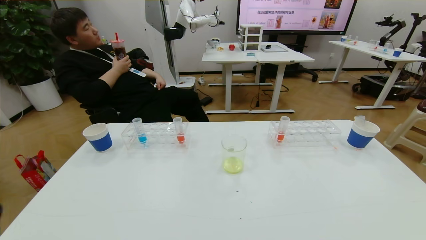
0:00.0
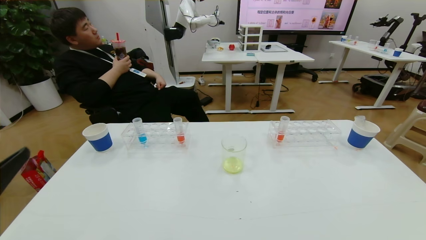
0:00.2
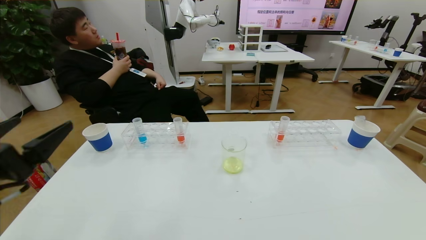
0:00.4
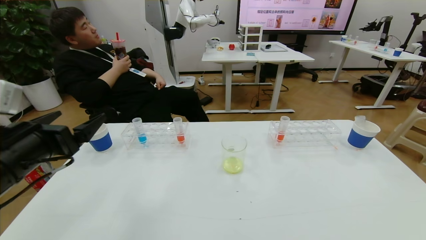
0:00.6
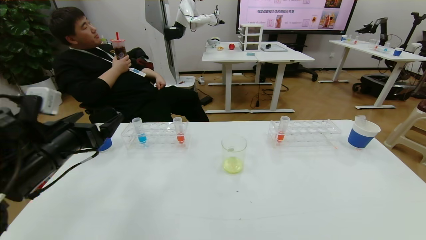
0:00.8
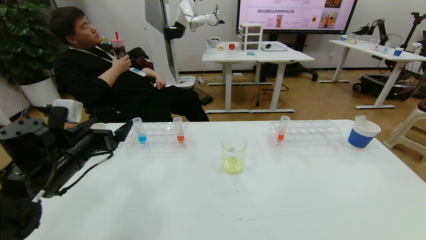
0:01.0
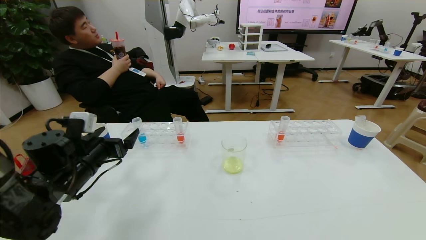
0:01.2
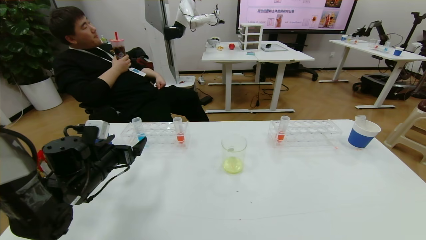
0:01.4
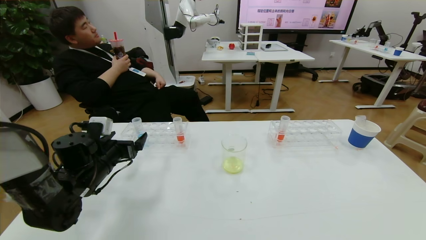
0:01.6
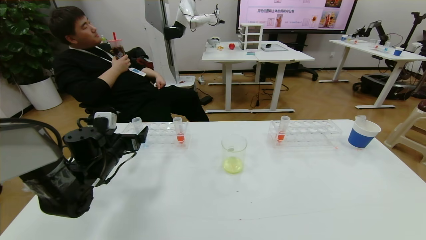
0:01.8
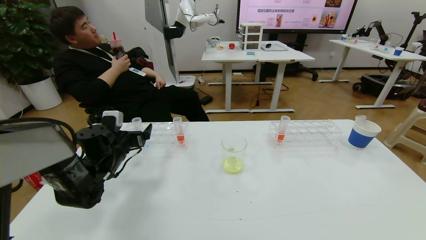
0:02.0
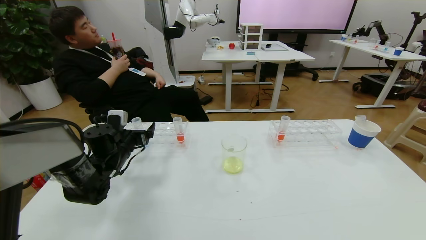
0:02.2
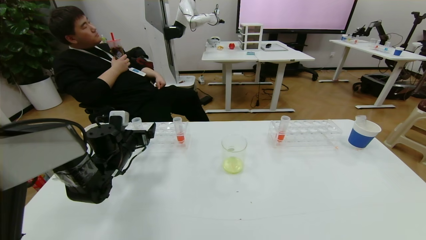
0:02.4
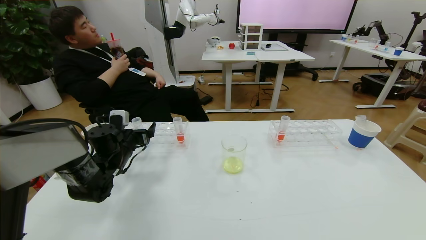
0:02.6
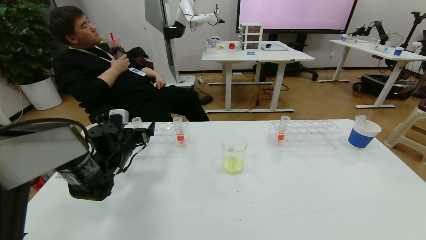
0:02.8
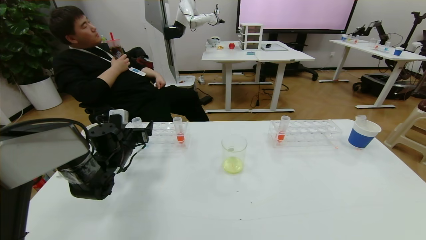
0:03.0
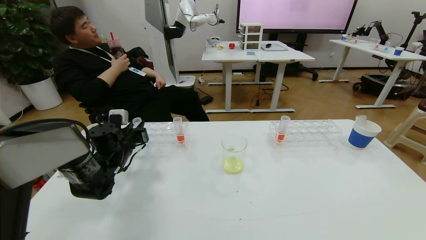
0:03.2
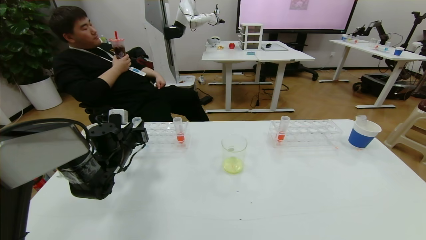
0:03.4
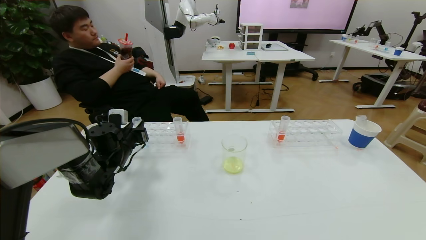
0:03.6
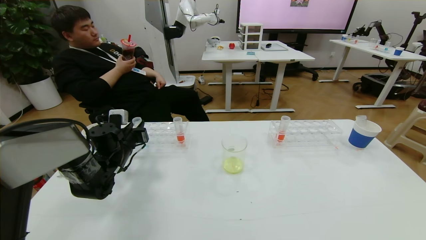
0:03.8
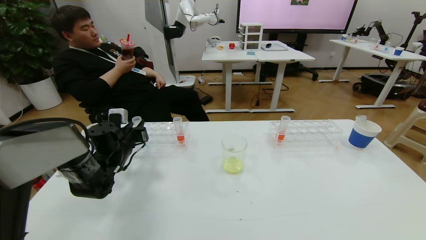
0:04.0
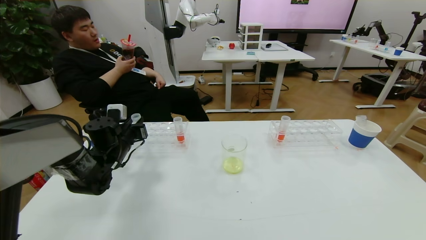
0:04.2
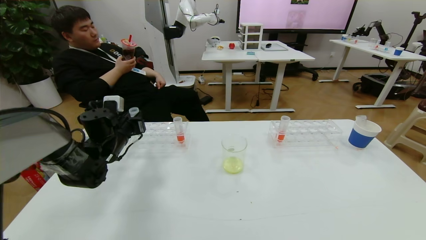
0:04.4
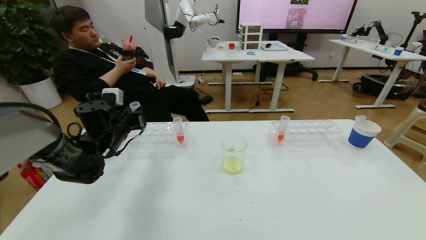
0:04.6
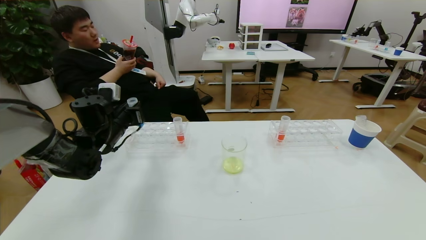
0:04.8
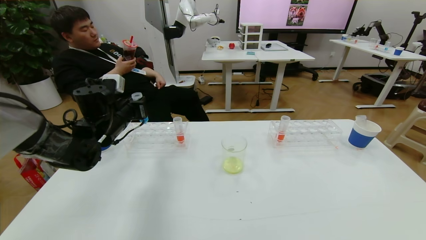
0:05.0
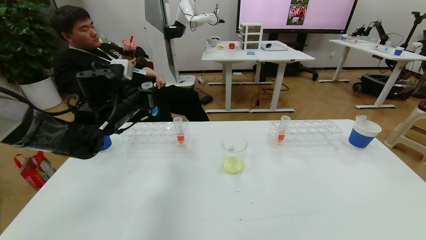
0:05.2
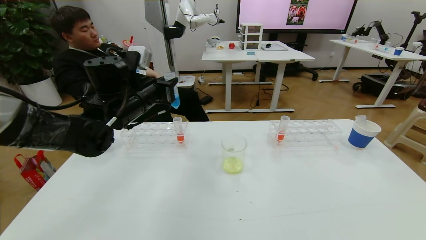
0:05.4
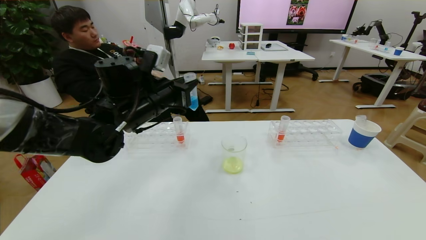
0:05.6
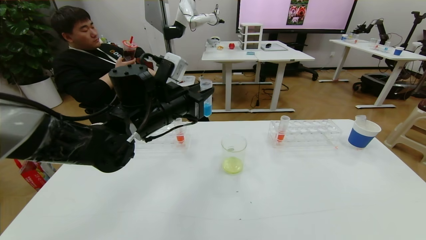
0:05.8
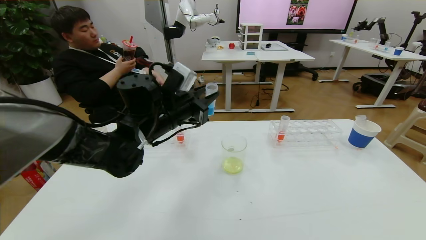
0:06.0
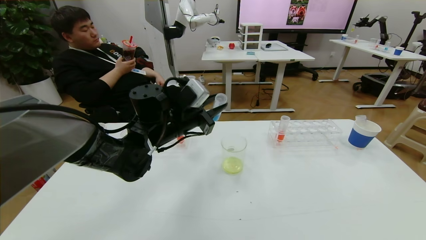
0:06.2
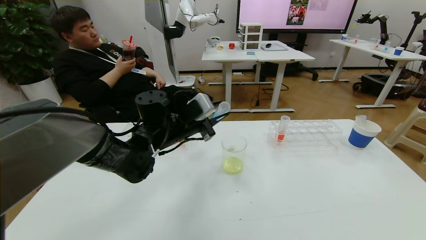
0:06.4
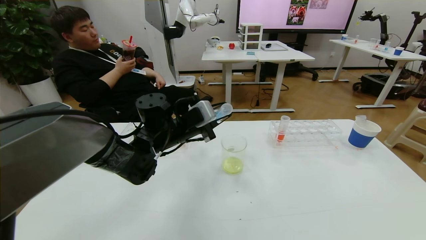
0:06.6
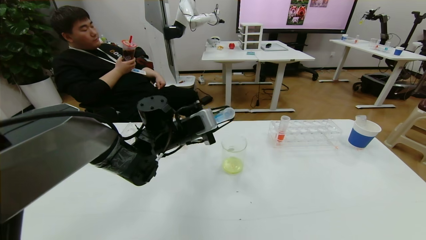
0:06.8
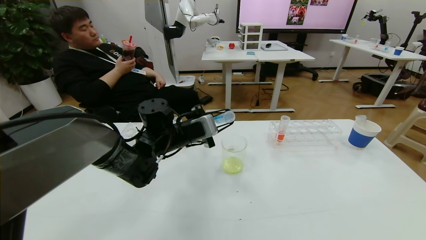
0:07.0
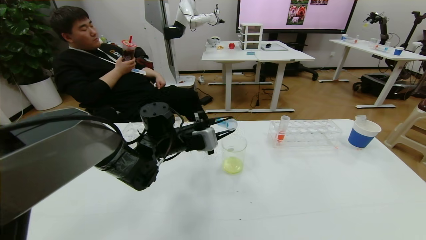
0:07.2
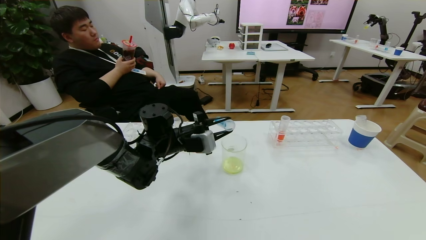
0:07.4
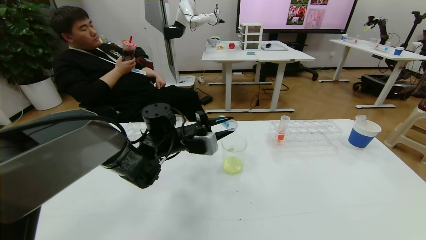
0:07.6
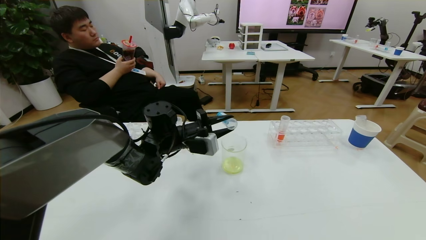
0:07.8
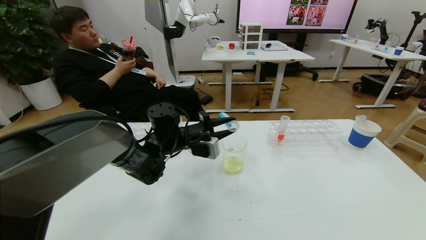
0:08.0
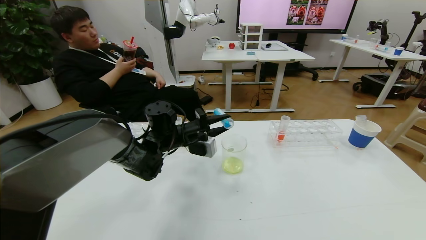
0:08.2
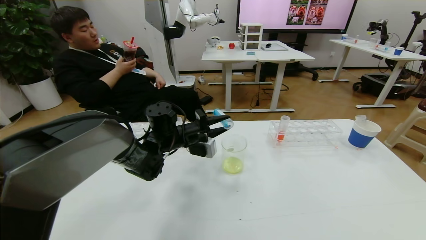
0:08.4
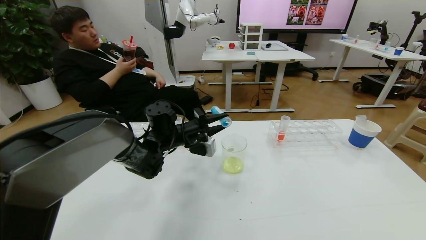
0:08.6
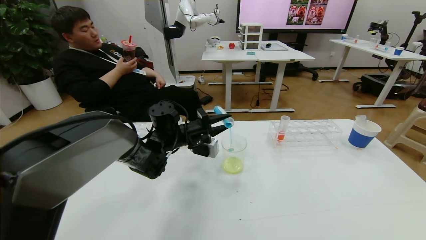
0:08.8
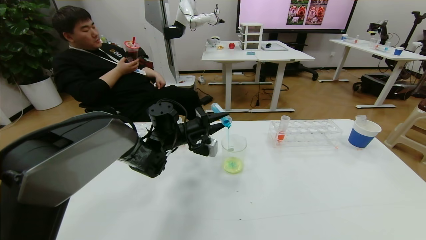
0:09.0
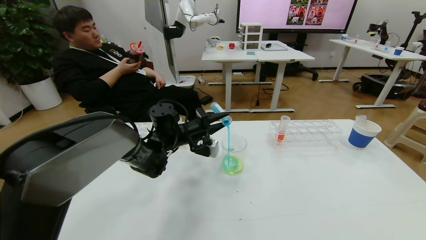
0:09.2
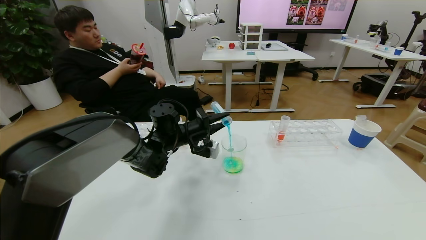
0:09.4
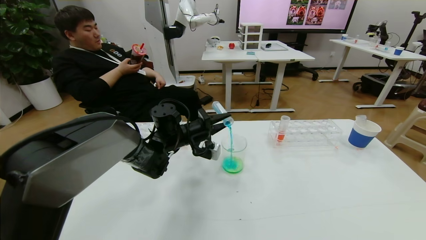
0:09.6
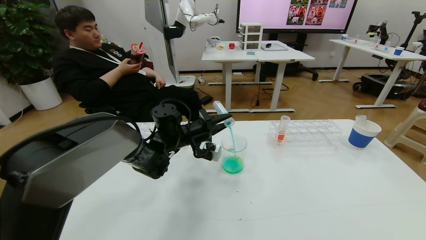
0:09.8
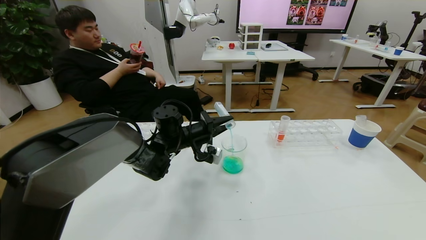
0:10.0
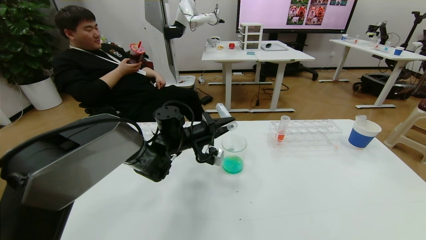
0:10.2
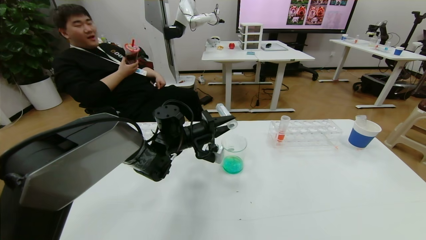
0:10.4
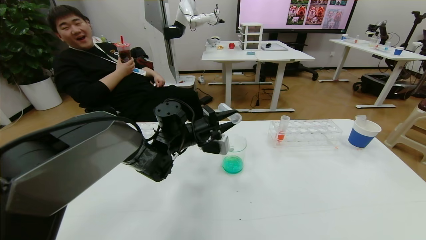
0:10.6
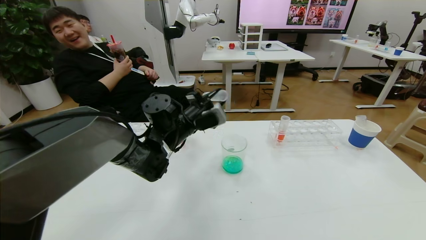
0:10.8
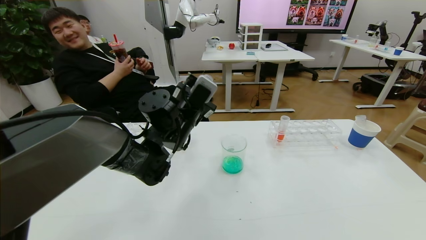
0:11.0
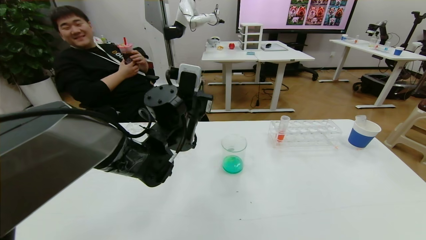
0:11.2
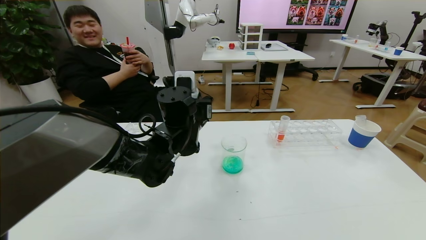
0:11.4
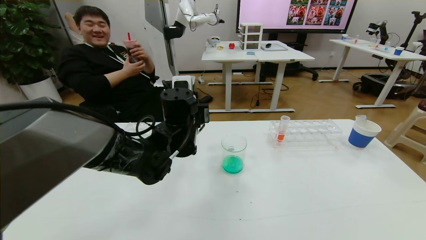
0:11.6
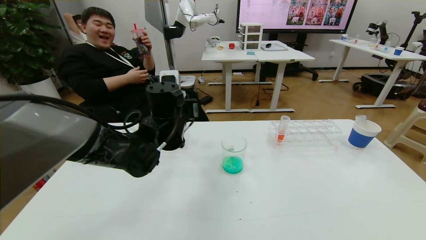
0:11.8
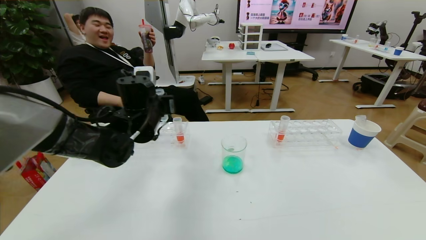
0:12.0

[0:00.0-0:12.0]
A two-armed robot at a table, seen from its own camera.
Task of the whole recording: pick up the test tube with yellow pigment and the test tube with blue pigment by grippers and pour them into the beaker.
0:00.0 to 0:01.6: The left gripper heads forward, covering roughly 30 cm.
0:01.6 to 0:03.0: The left gripper goes approximately 10 cm forward.
0:03.0 to 0:04.4: The left gripper closes its fingers.
0:04.4 to 0:06.0: The left gripper heads to the right and upward, covering roughly 20 cm.
0:06.0 to 0:07.6: The left gripper travels downward by about 5 cm.
0:09.0 to 0:10.4: The grippers stay close to where they were, moving slightly.
0:10.4 to 0:12.0: The left gripper heads to the left and upward, covering about 10 cm.

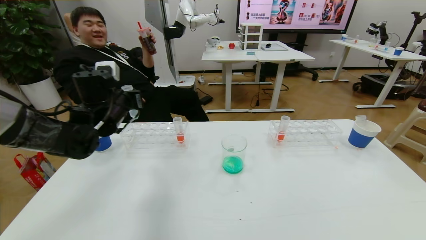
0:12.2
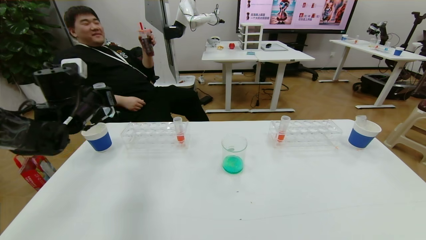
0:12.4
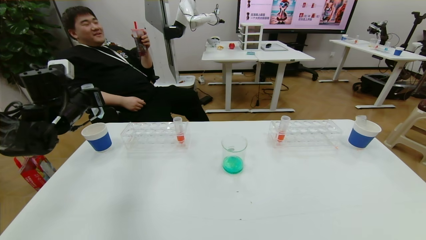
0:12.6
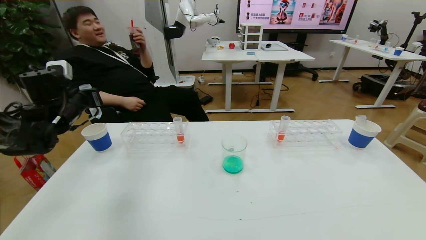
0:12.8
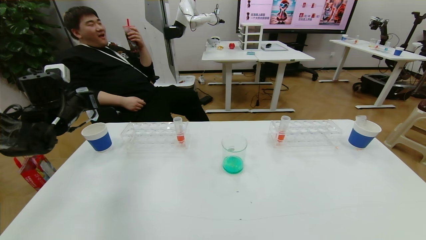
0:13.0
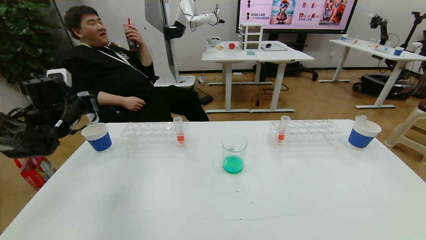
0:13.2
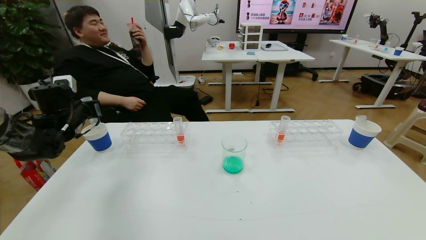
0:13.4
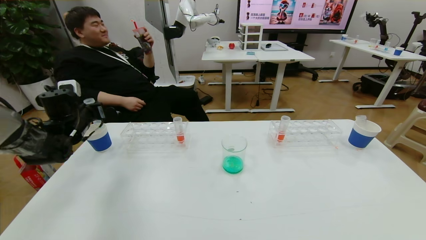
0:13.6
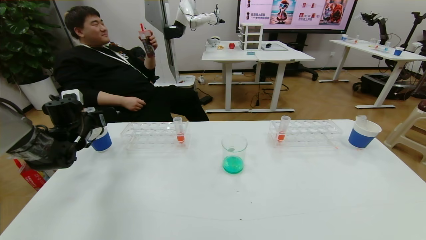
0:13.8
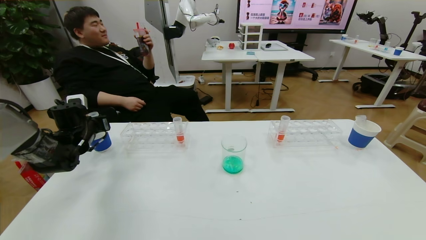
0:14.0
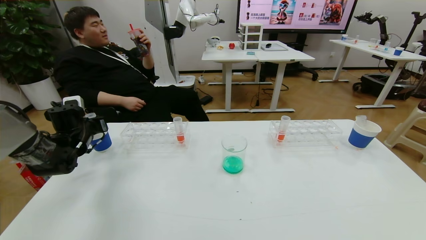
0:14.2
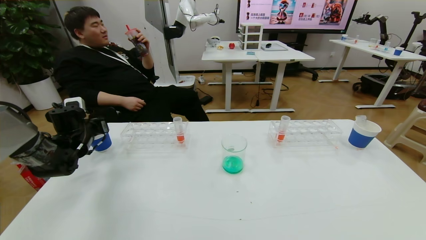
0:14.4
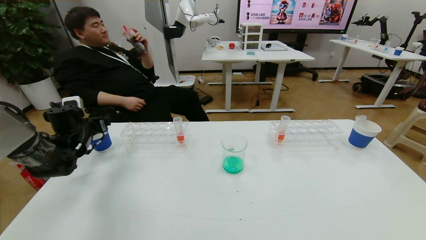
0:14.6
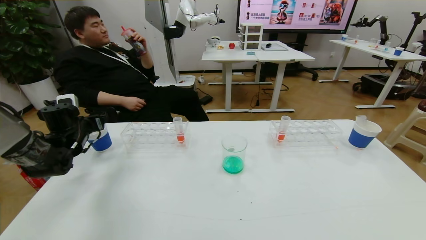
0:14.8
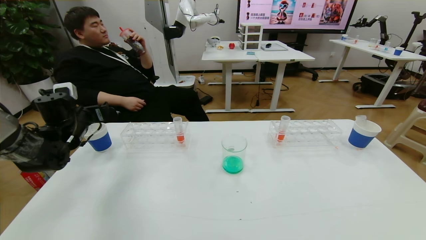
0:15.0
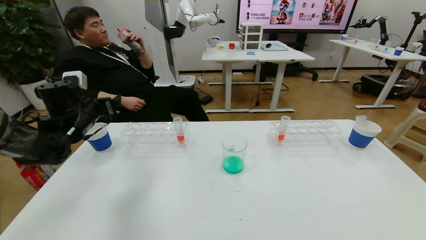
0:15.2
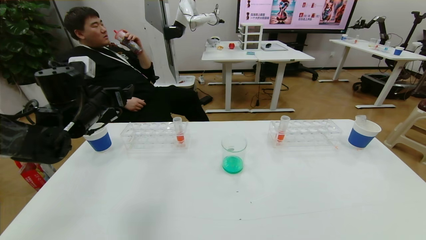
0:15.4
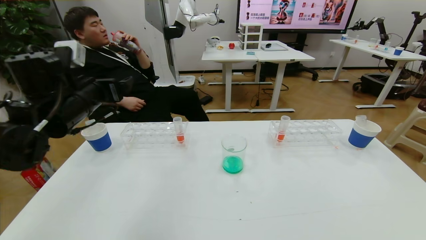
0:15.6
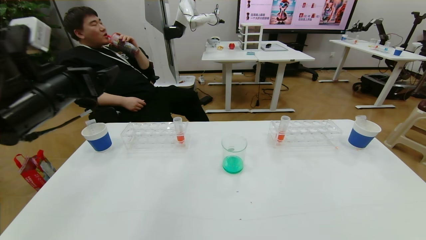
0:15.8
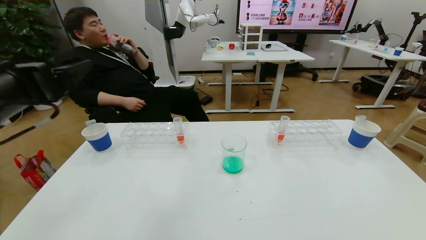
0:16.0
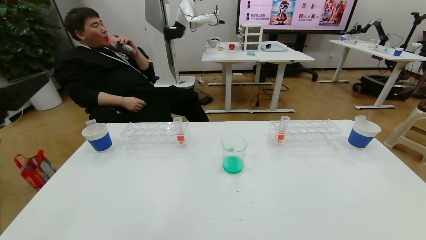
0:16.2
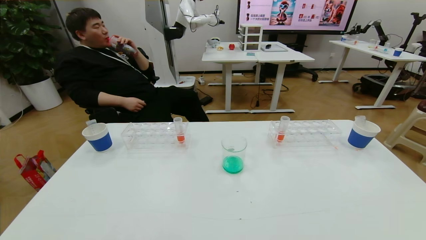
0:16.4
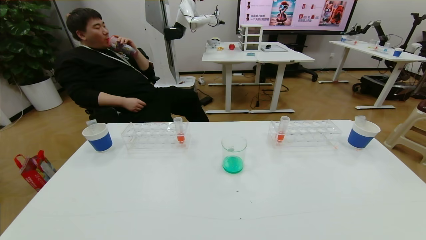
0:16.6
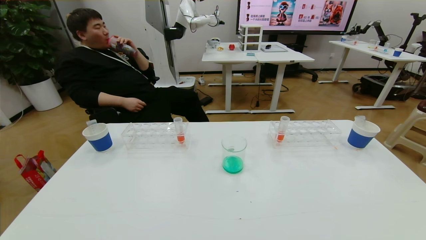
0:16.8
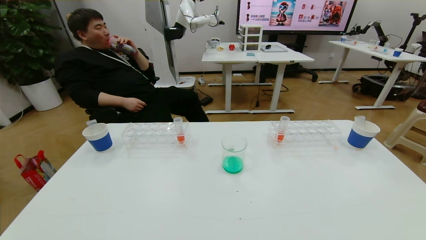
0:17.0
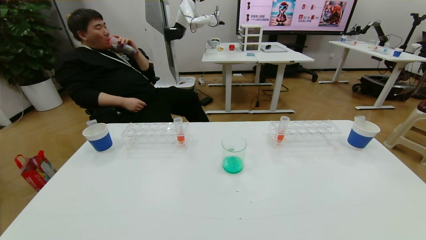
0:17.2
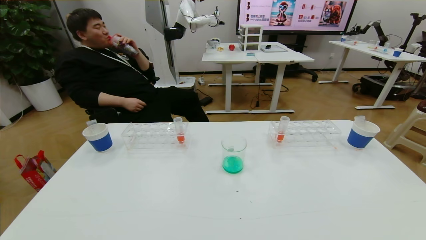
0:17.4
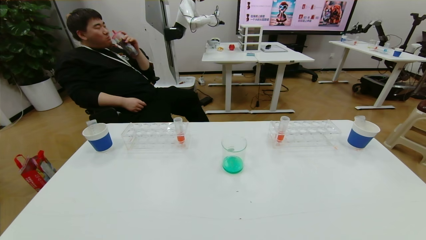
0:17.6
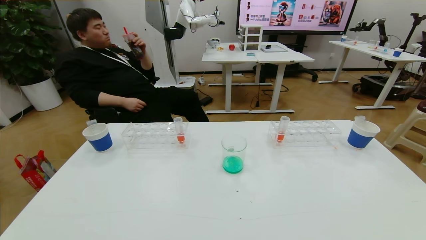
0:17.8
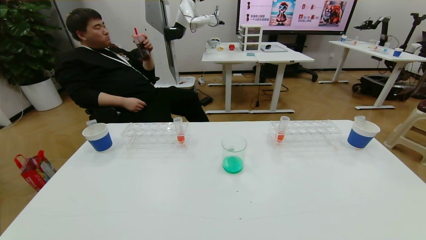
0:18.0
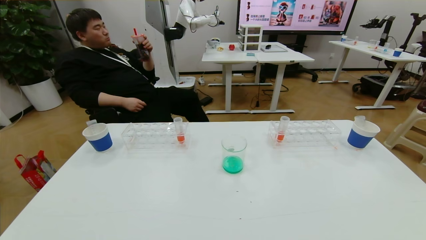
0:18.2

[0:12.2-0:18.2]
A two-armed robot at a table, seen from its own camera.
Task of the whole recording: pick up the test tube with yellow pigment and the test tube with blue pigment by grippers and pour them into the beaker.
0:12.2 to 0:13.8: The left gripper heads to the left and downward, covering about 15 cm.
0:13.8 to 0:15.2: The left gripper shifts approximately 10 cm upward and to the right, and opens up.
0:15.2 to 0:16.6: The left gripper is displaced backward by some 40 cm.
0:16.6 to 0:18.2: The left gripper moves downward, about 20 cm.
